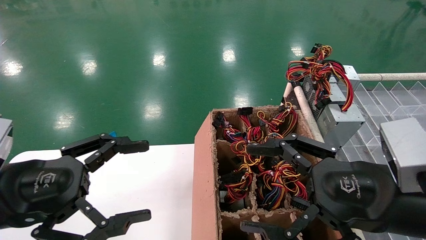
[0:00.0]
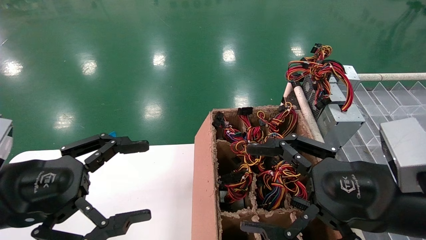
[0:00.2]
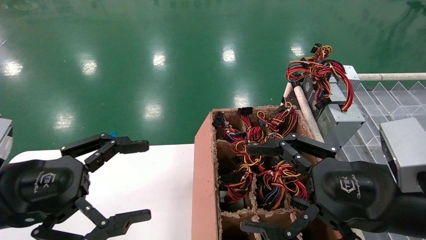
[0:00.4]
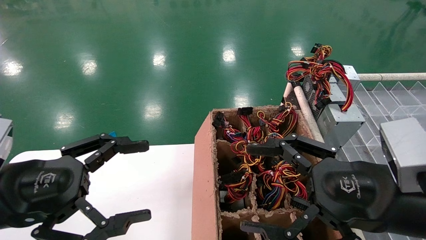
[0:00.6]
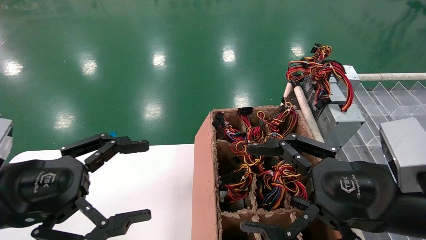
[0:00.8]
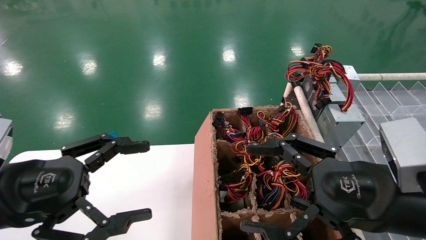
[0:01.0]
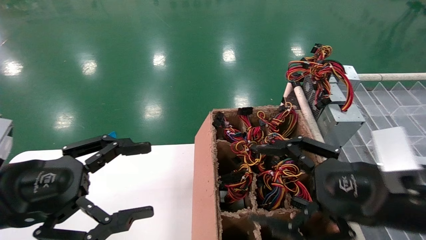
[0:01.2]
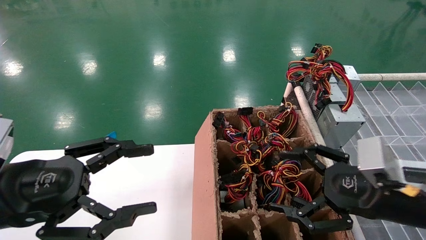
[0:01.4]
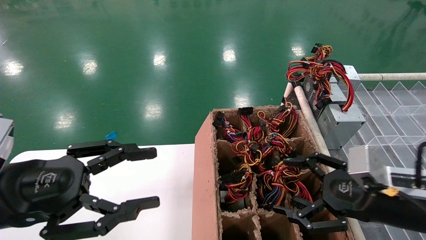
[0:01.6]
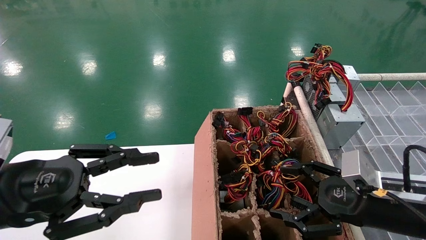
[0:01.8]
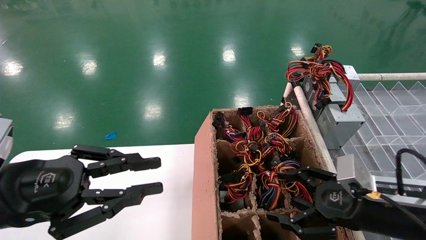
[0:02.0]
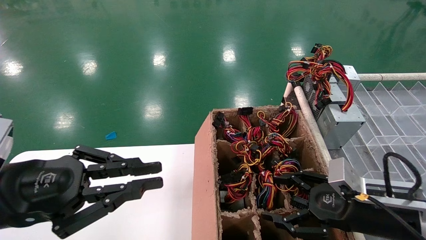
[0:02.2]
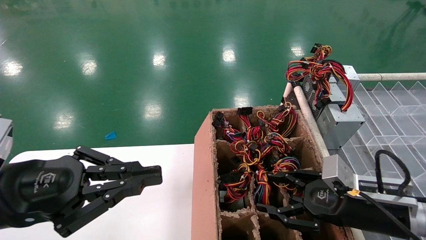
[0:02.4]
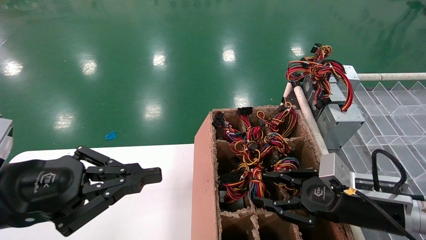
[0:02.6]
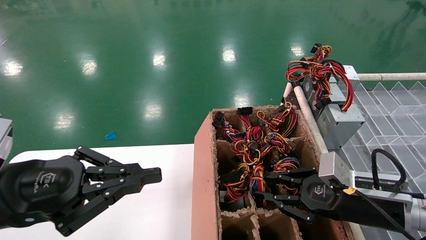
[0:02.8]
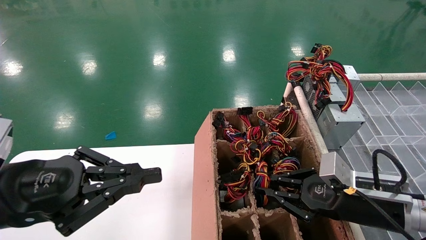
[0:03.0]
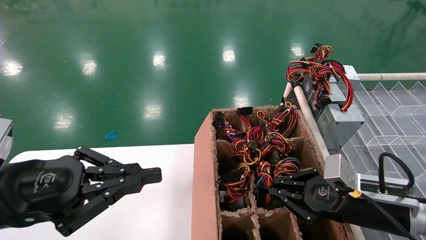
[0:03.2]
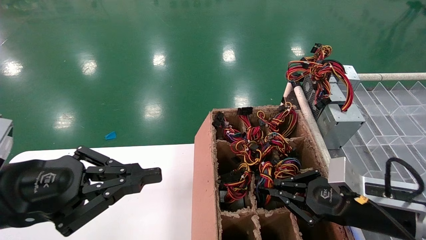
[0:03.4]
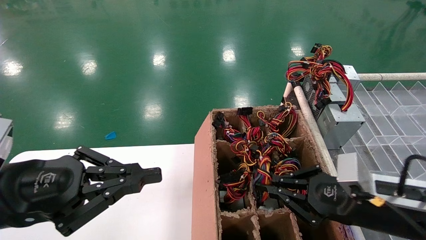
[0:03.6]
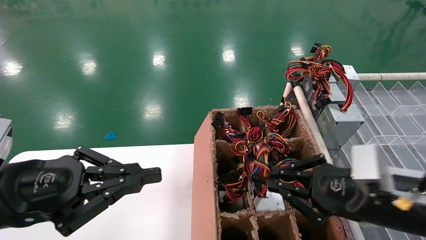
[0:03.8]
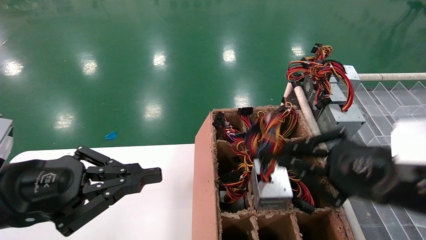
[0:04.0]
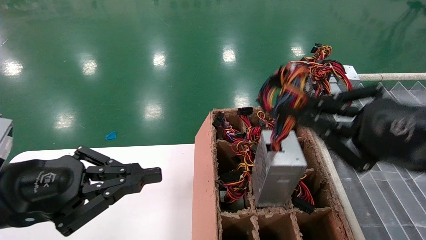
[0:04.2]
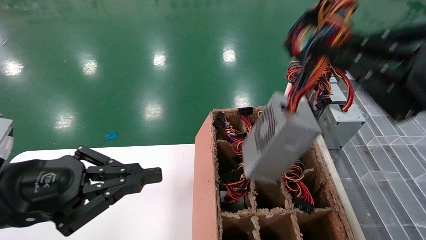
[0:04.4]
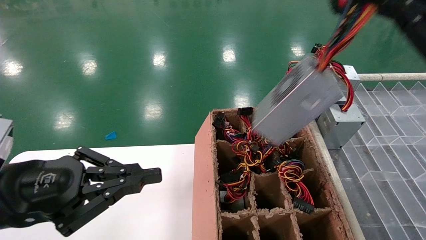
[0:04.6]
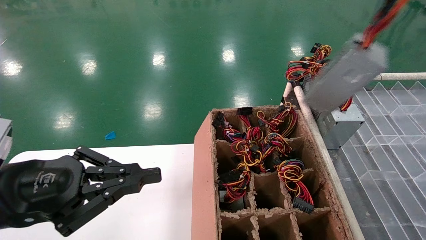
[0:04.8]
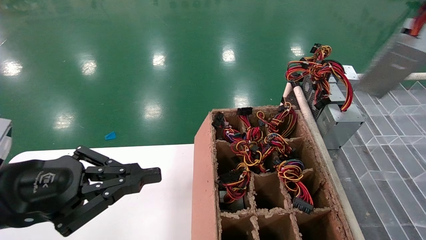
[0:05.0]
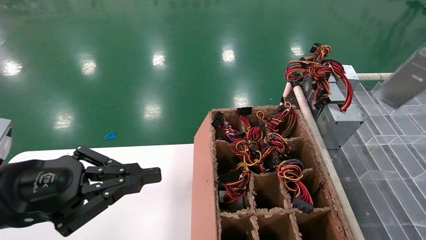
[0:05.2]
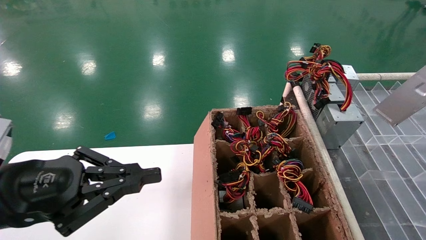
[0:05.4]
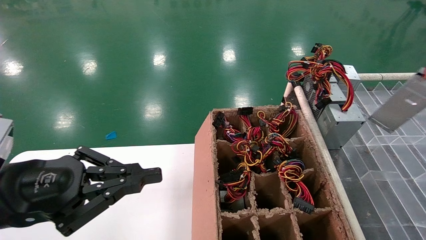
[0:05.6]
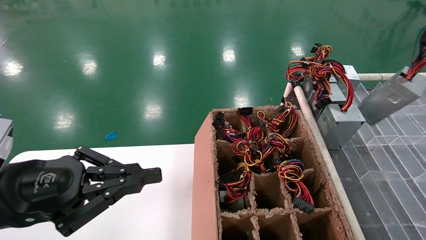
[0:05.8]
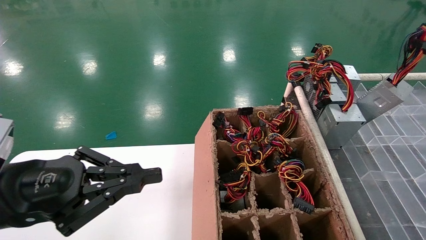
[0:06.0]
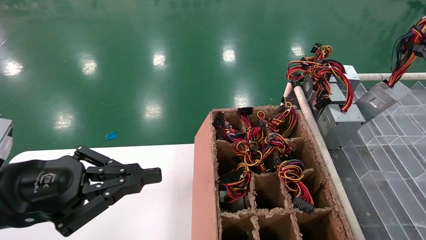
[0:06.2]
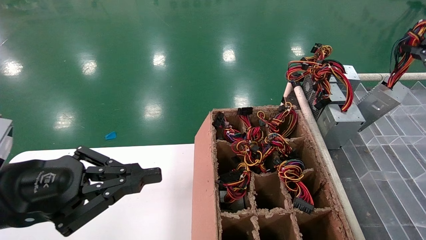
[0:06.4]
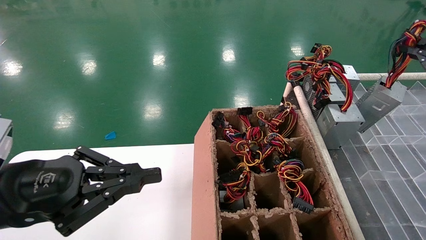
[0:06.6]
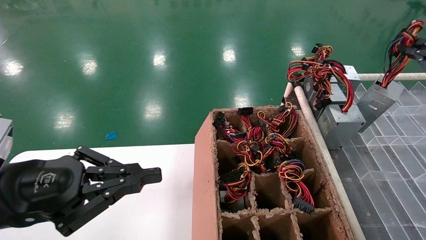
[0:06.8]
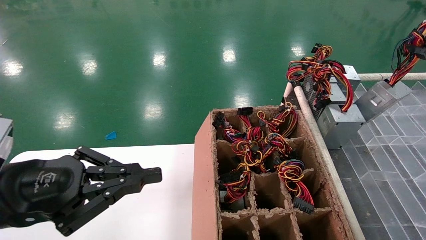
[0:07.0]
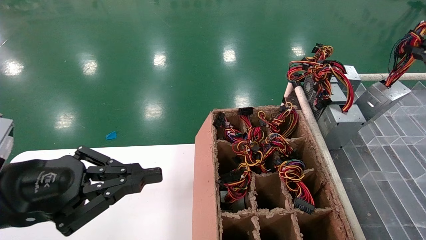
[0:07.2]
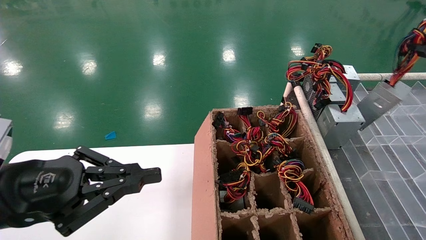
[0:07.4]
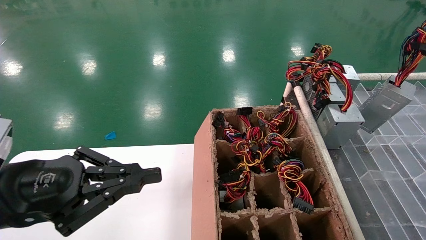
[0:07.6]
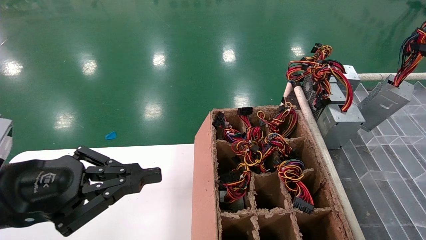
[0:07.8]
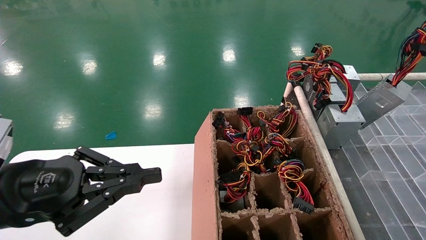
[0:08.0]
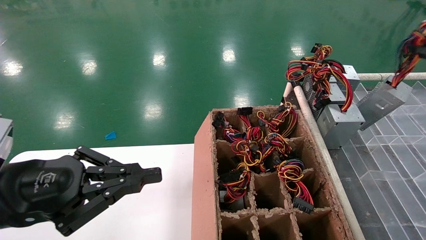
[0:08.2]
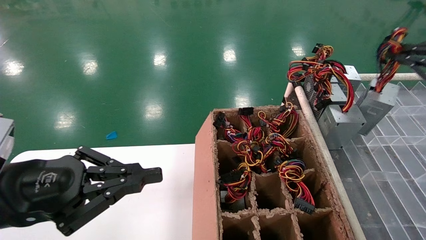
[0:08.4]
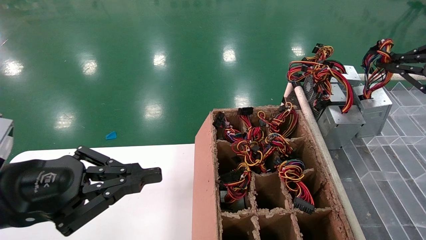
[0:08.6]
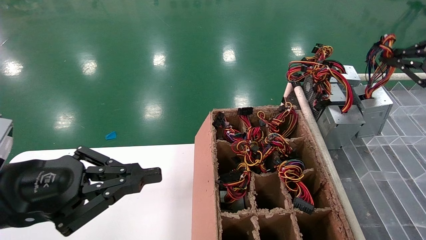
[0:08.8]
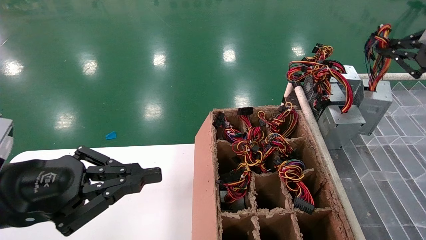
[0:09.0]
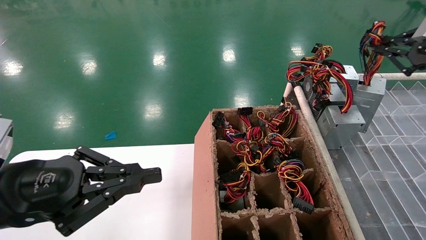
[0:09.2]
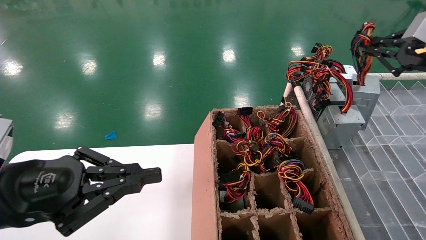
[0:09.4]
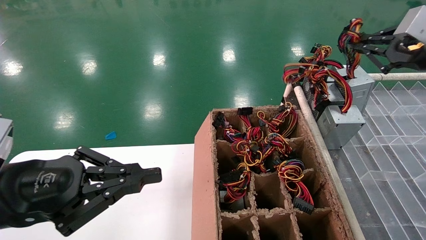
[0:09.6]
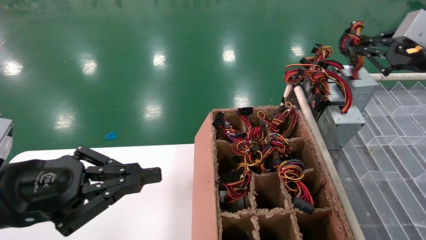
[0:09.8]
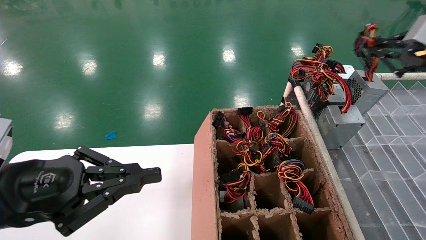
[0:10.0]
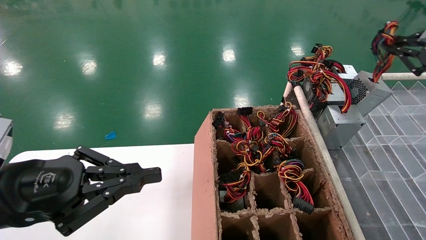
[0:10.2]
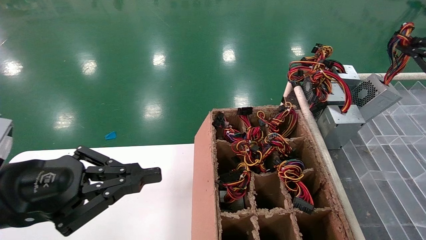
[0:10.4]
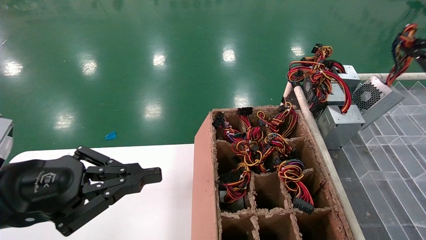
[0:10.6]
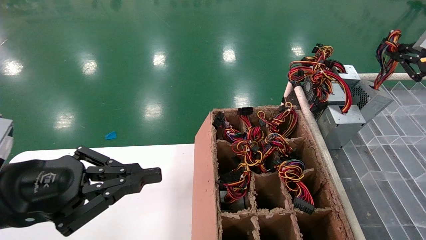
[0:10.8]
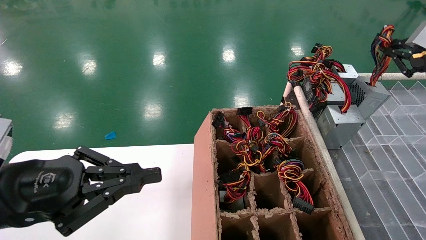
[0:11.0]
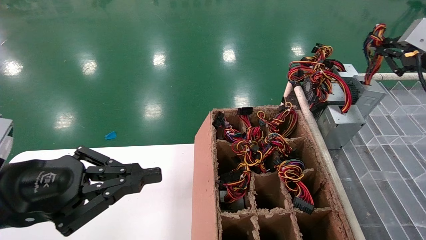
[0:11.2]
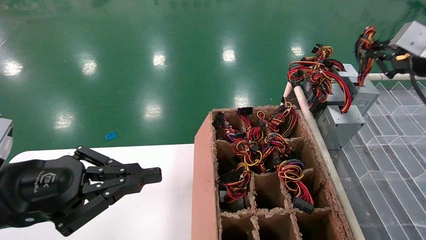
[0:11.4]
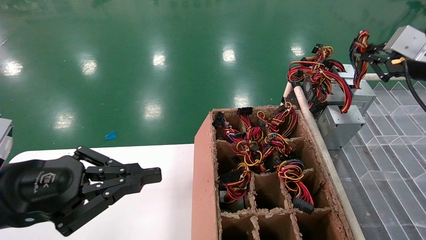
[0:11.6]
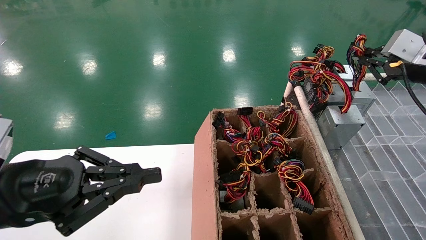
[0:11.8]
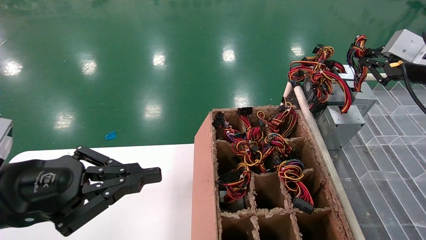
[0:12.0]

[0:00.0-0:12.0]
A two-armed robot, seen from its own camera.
Step, 0:01.6 to 0:03.0: Grab the main unit power supply from the containment box.
0:00.0 to 0:01.6: The right gripper travels to the right, downward and forward by some 10 cm.
0:01.6 to 0:03.0: The left gripper closes up; the right gripper ends up approximately 5 cm from where it was, and closes.
0:03.0 to 0:04.4: The right gripper heads upward and backward, covering approximately 20 cm.
0:04.4 to 0:06.0: The right gripper travels to the right and forward by approximately 20 cm.
0:06.0 to 0:07.6: The grippers stay close to where they were, moving slightly.
0:07.6 to 0:09.0: The right gripper shifts some 5 cm to the left.
0:09.0 to 0:10.4: The grippers make only small movements.
0:10.4 to 0:12.0: The right gripper moves some 5 cm.

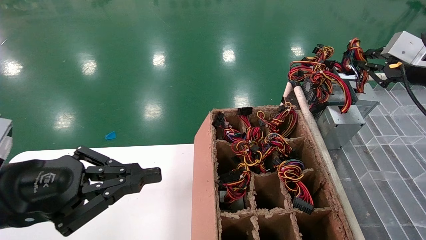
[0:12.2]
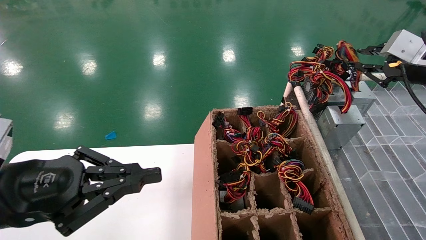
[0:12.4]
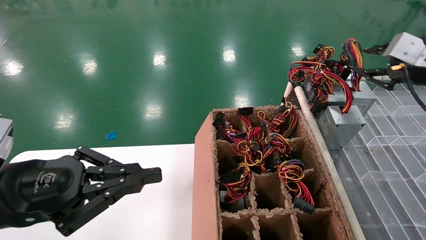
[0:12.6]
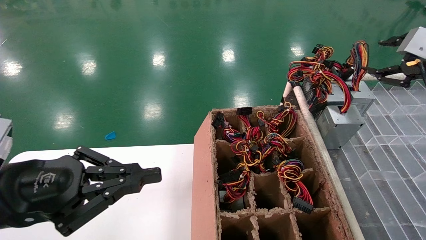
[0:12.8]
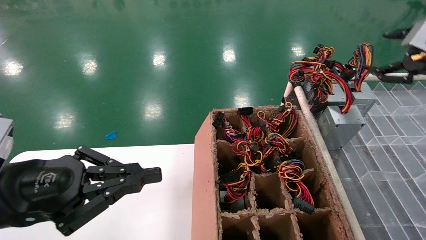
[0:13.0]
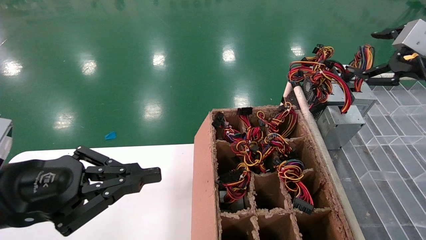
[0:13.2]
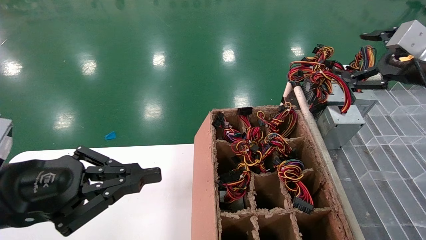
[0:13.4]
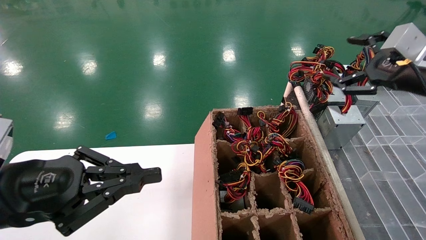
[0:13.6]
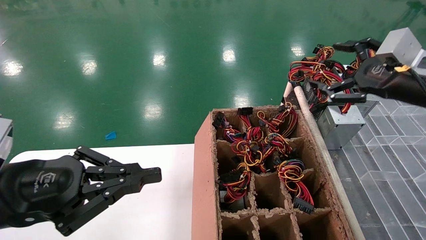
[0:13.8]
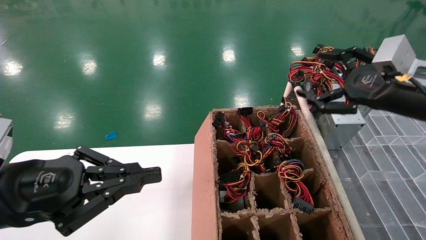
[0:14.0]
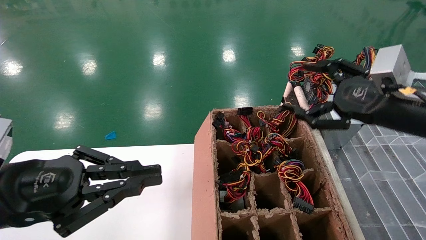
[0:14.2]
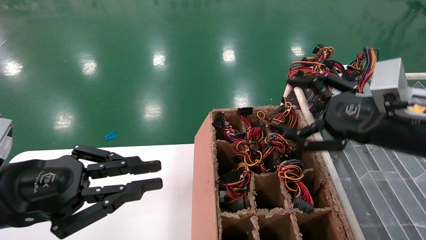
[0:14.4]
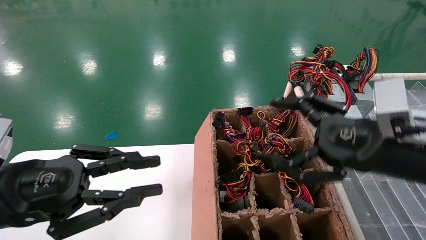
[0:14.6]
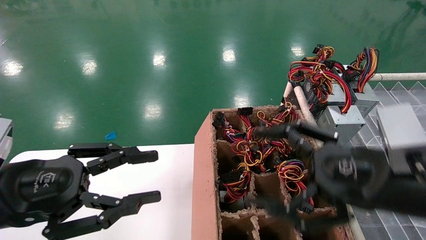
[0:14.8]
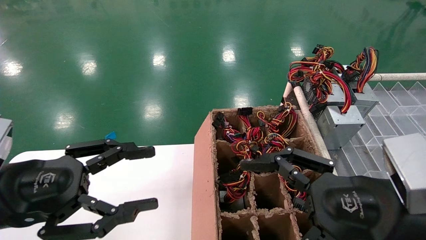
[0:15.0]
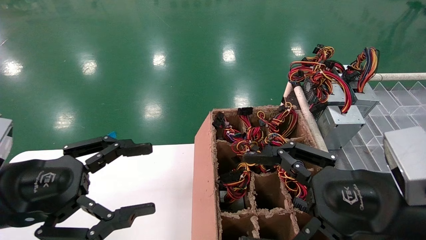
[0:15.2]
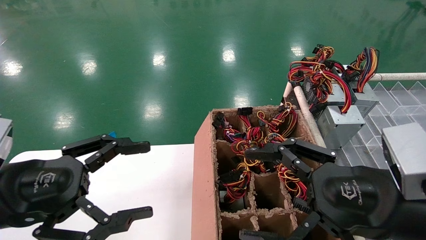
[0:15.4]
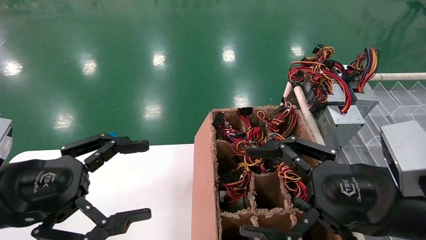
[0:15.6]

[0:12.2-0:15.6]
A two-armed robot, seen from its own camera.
0:12.2 to 0:13.8: The right gripper heads to the left, covering some 5 cm, and opens.
0:13.8 to 0:15.6: The left gripper opens; the right gripper shifts approximately 20 cm backward, to the left and downward.

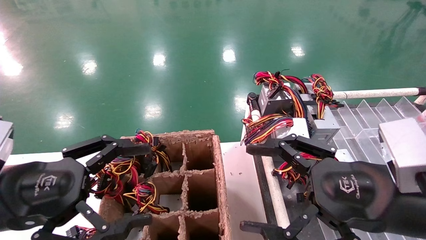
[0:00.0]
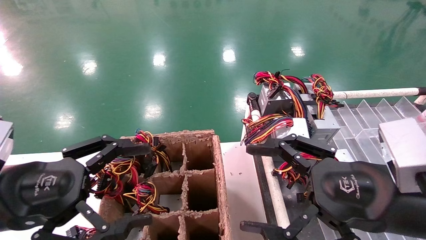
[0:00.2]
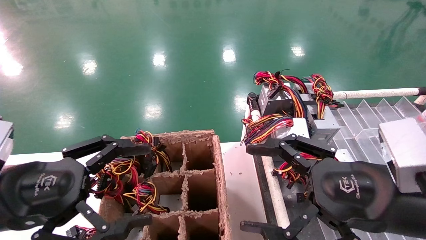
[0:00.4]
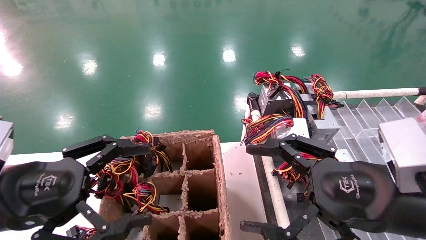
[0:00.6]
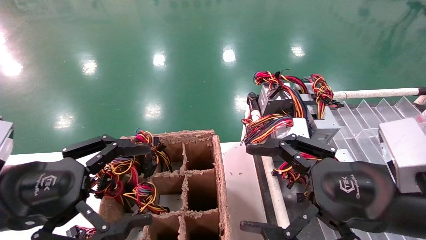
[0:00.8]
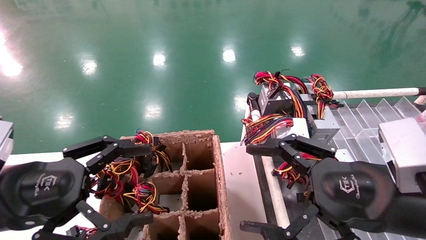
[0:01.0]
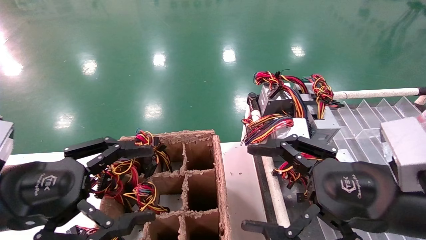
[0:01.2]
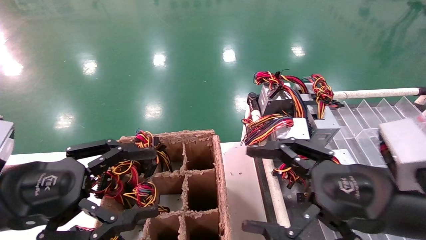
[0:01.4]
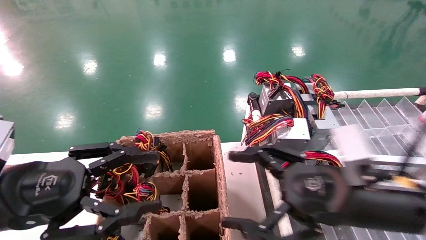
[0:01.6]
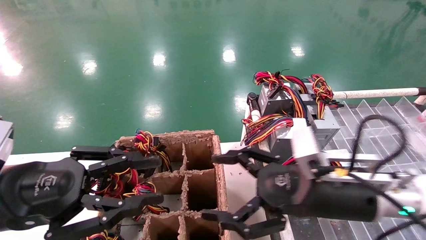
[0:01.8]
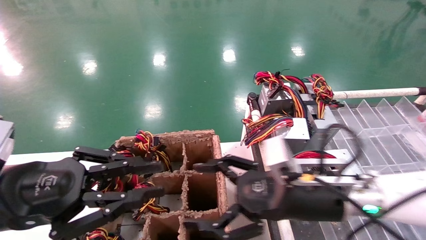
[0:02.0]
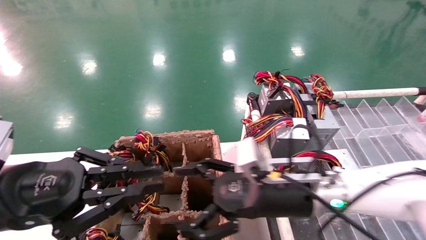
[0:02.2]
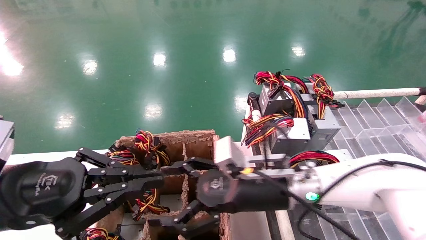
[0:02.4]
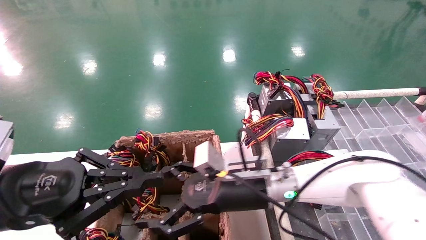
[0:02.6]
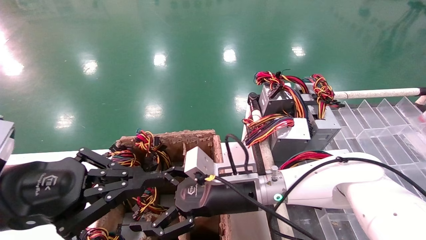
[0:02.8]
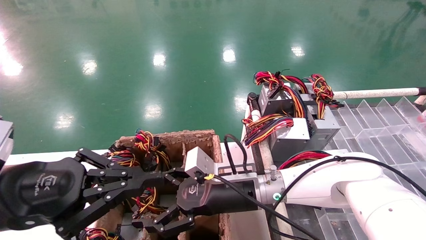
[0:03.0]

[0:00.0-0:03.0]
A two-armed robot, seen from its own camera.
0:00.0 to 0:01.6: The right gripper moves about 5 cm.
0:01.6 to 0:03.0: The right gripper travels to the left, forward and downward by about 20 cm, while the left gripper closes.
